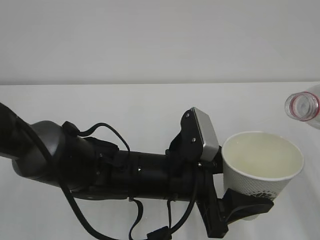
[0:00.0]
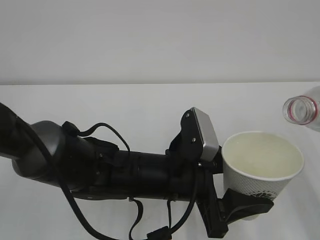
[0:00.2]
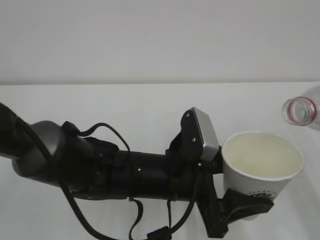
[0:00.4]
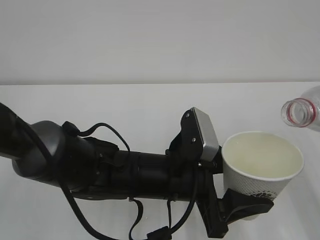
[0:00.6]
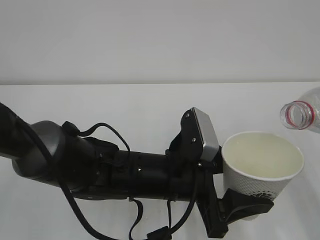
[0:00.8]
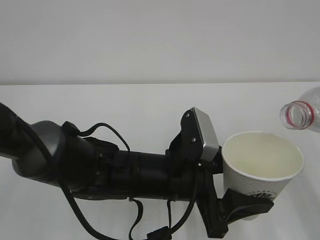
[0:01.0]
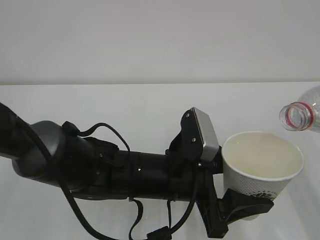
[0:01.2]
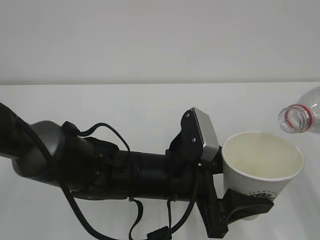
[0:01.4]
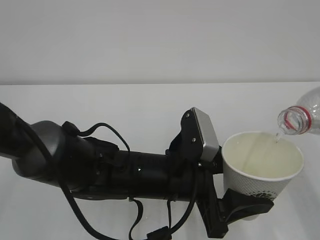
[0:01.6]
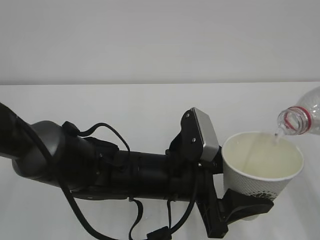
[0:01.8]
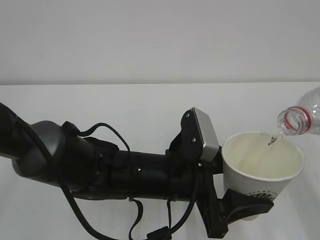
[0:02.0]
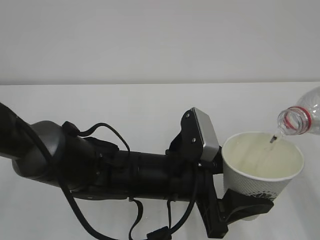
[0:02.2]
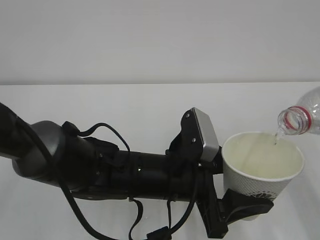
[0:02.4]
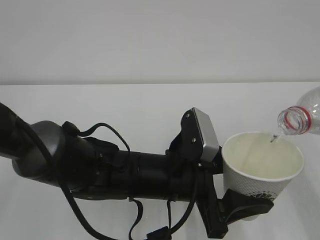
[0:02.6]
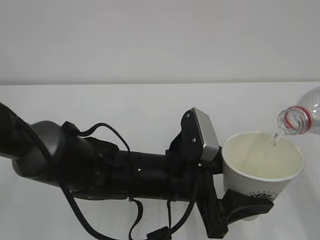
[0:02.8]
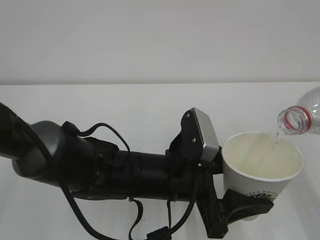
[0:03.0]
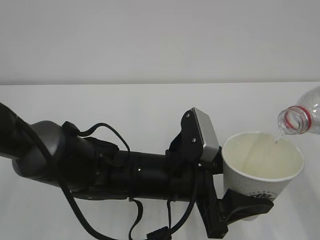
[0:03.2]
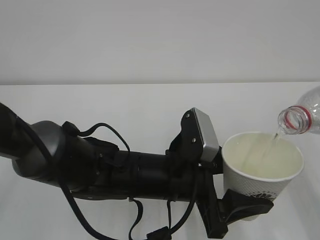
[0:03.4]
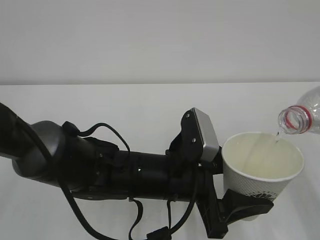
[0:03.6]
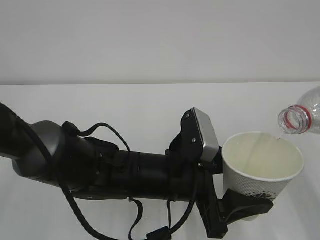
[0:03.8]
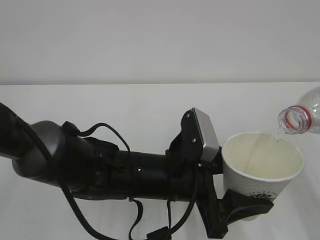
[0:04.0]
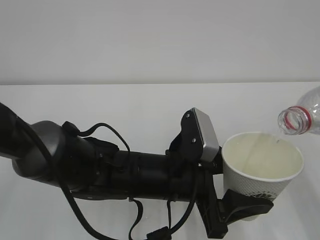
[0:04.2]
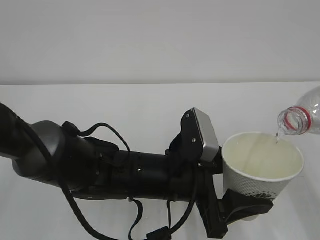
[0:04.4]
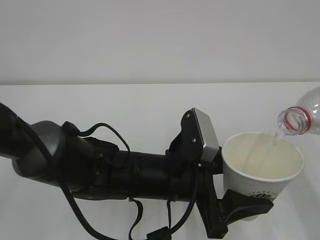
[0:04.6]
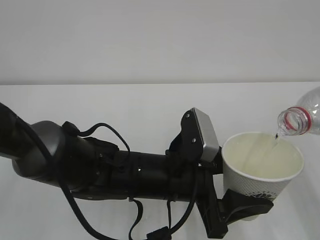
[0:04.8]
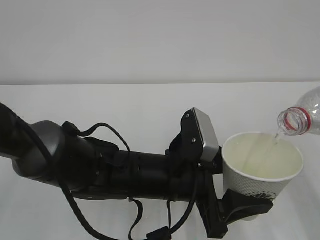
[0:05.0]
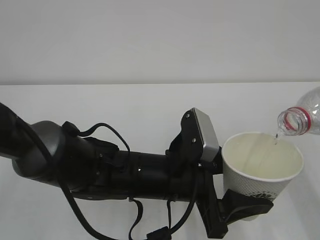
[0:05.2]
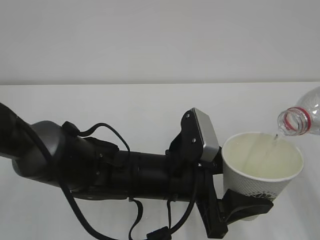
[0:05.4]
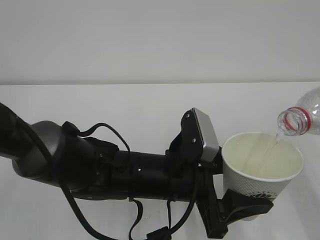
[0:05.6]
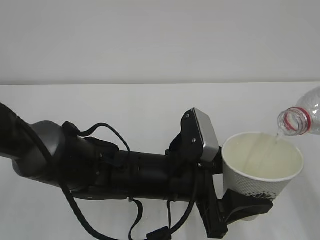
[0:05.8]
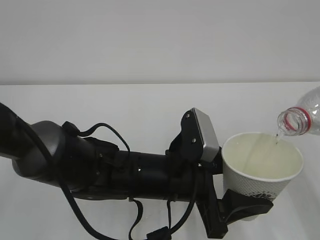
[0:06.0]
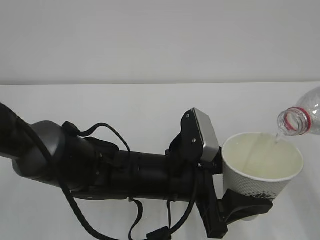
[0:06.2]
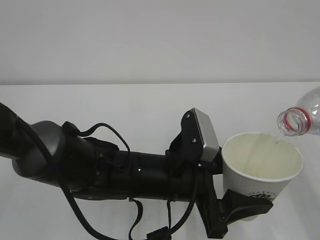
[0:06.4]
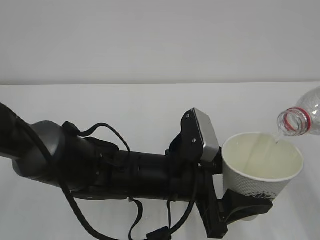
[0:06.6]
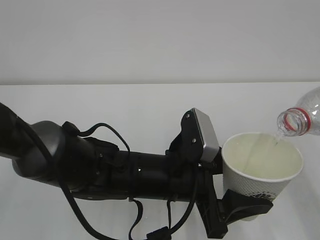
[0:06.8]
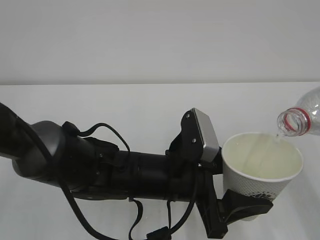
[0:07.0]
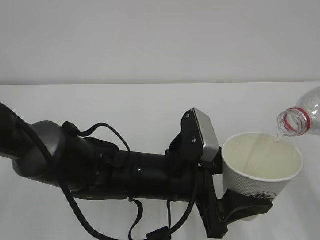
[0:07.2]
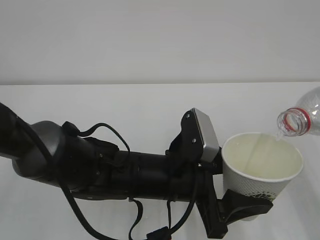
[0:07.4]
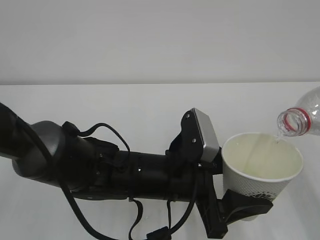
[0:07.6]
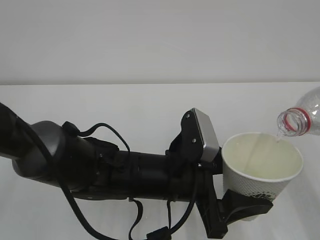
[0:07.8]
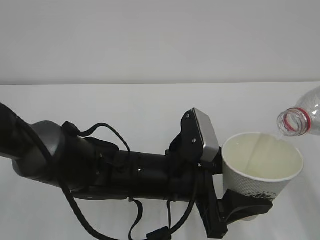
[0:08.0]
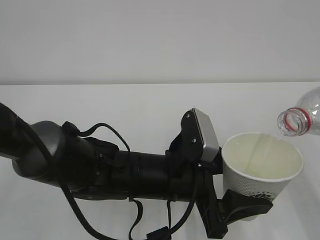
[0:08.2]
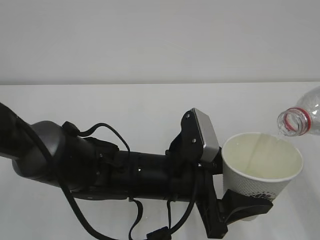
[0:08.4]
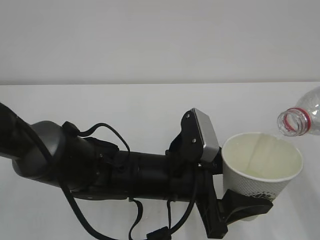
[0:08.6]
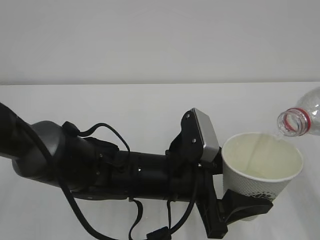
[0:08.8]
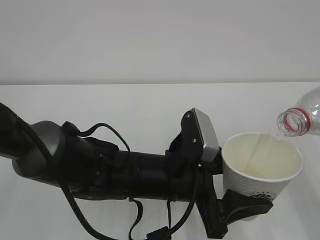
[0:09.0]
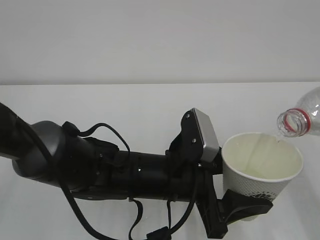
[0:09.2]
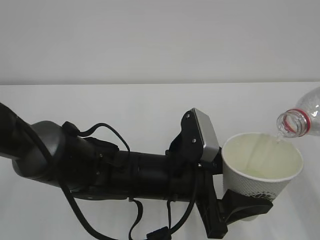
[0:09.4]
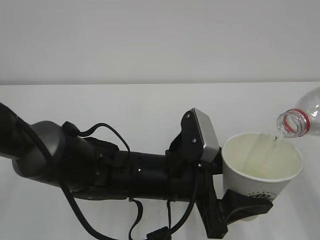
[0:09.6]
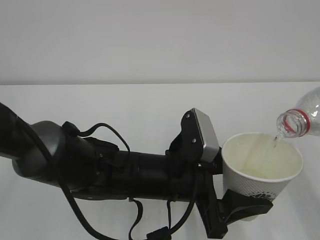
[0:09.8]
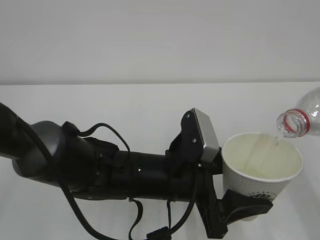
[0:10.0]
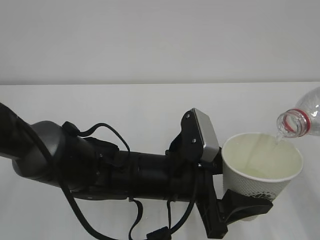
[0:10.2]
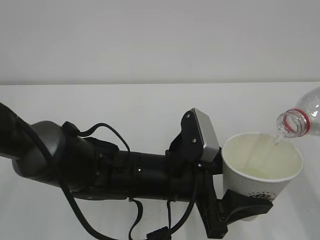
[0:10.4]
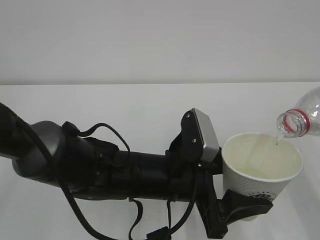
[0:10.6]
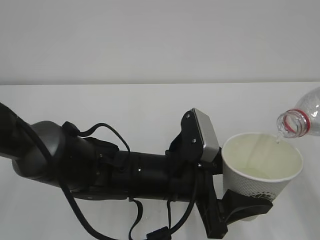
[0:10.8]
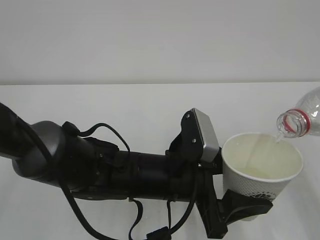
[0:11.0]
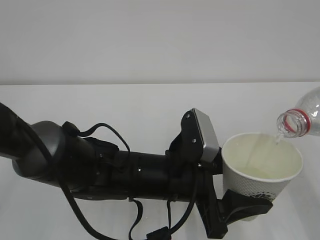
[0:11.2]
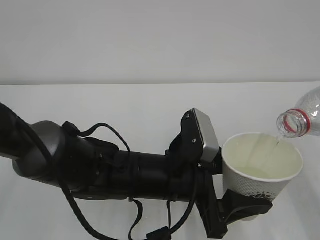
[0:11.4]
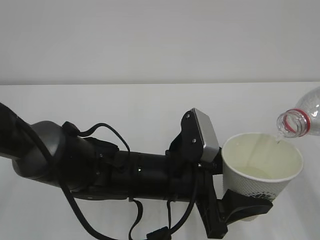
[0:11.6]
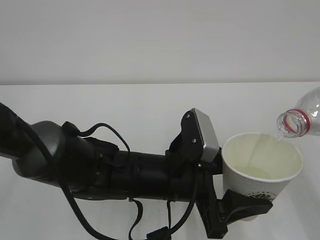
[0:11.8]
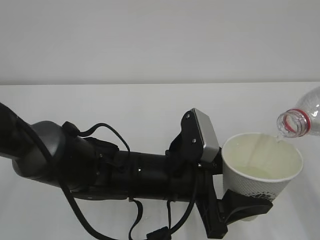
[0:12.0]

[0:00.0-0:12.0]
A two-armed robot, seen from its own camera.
0:00.0 to 0:01.6: The grippers make only small movements.
0:01.6 to 0:12.0: The two grippers keep their place.

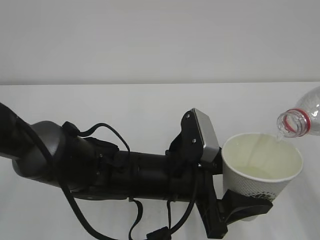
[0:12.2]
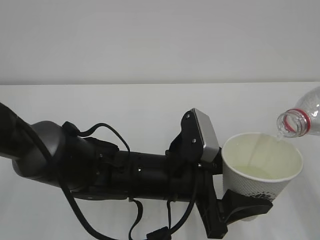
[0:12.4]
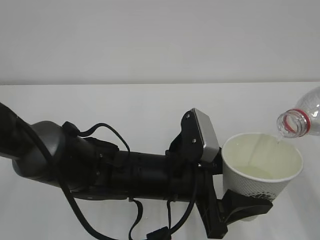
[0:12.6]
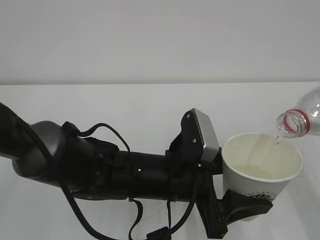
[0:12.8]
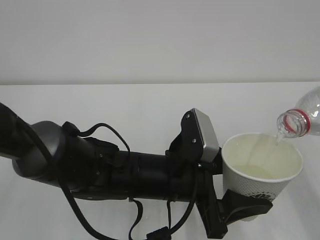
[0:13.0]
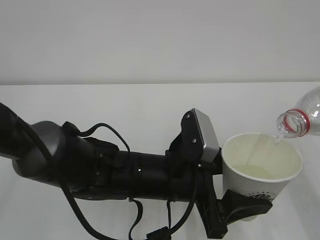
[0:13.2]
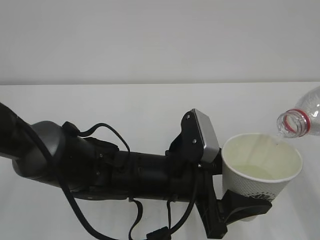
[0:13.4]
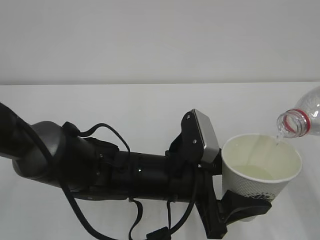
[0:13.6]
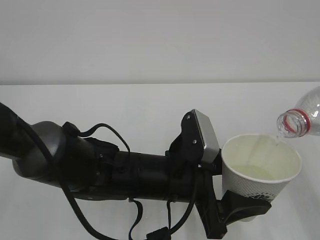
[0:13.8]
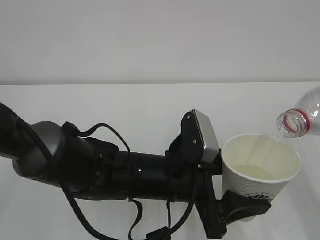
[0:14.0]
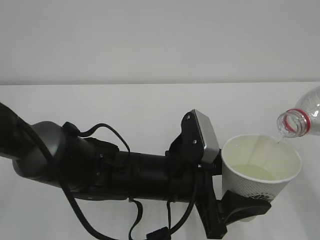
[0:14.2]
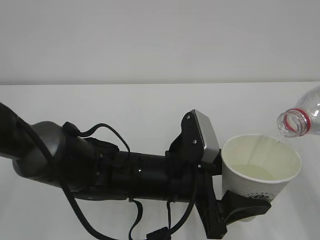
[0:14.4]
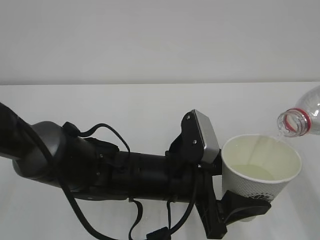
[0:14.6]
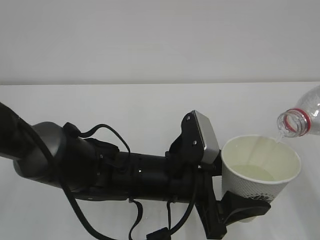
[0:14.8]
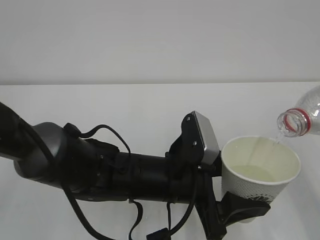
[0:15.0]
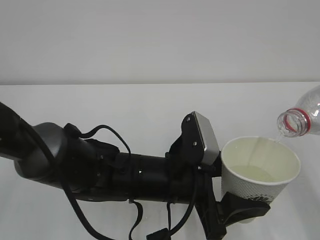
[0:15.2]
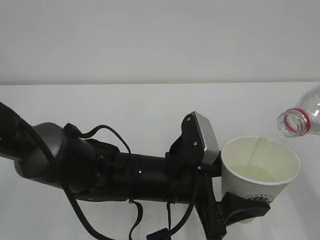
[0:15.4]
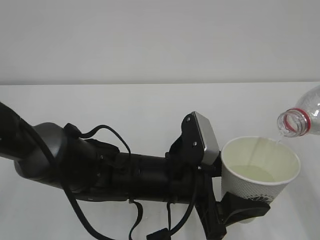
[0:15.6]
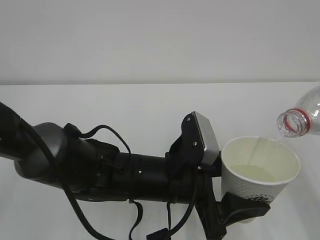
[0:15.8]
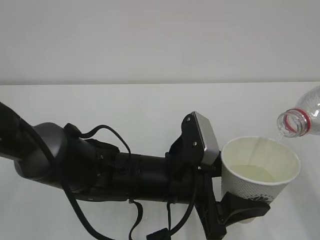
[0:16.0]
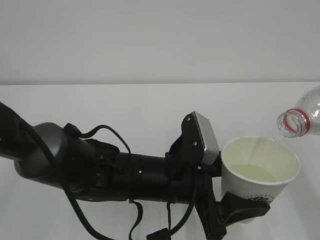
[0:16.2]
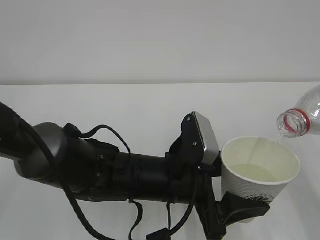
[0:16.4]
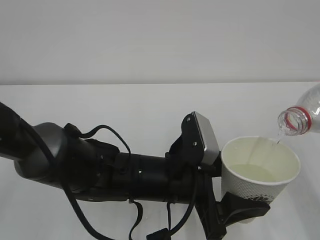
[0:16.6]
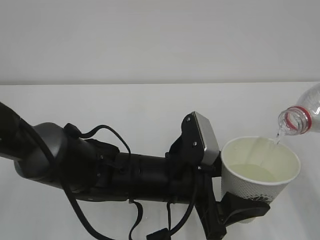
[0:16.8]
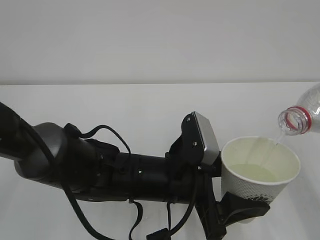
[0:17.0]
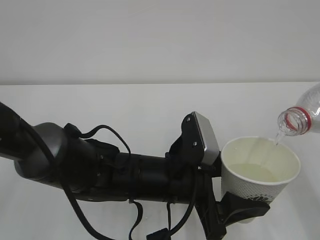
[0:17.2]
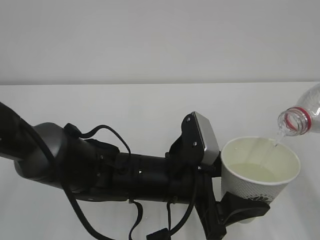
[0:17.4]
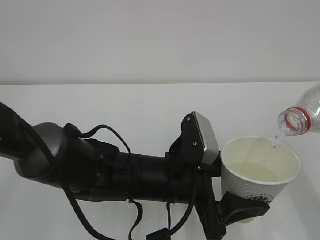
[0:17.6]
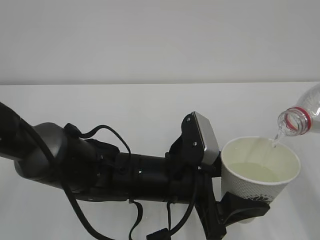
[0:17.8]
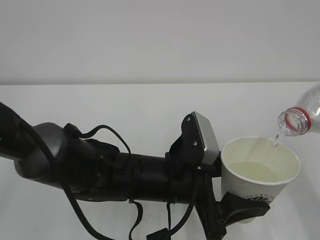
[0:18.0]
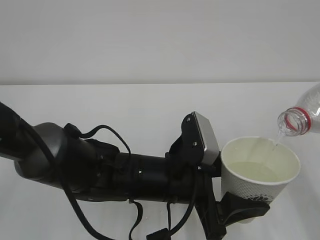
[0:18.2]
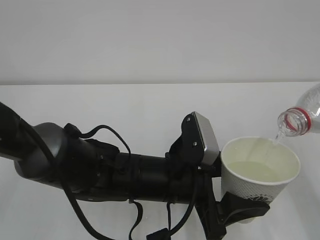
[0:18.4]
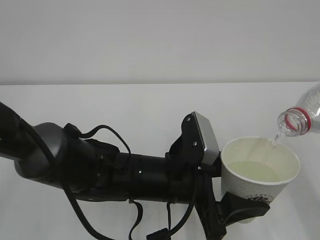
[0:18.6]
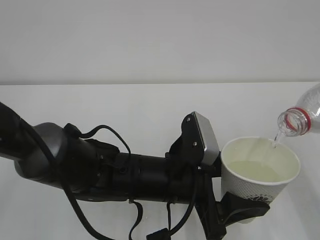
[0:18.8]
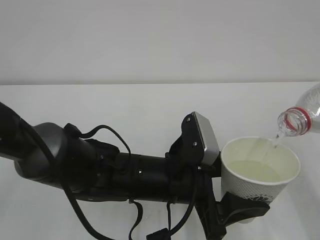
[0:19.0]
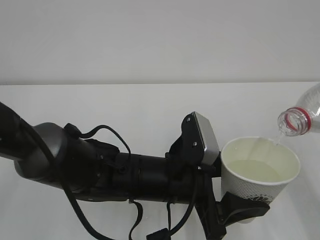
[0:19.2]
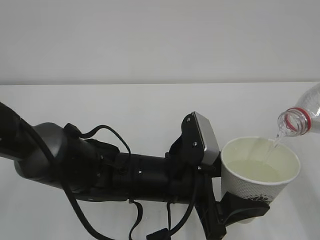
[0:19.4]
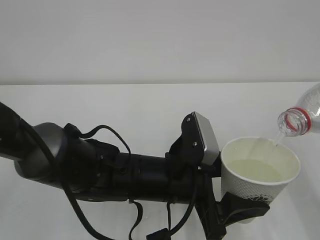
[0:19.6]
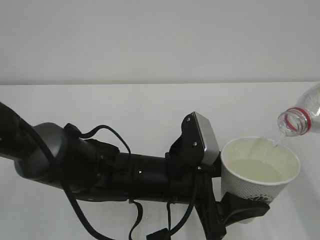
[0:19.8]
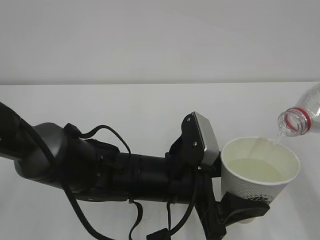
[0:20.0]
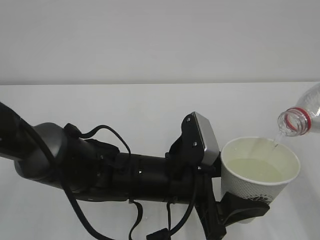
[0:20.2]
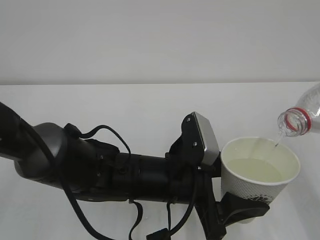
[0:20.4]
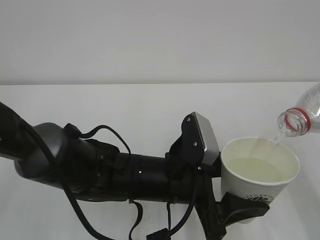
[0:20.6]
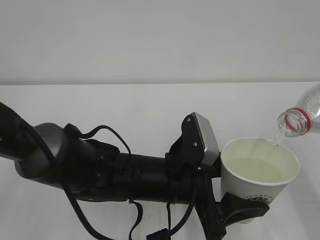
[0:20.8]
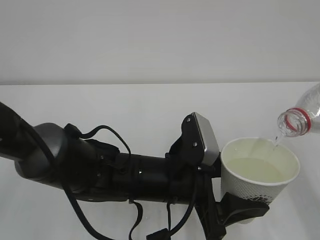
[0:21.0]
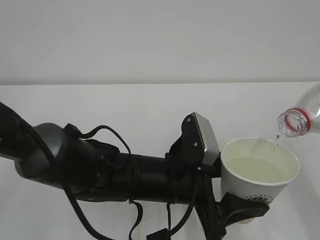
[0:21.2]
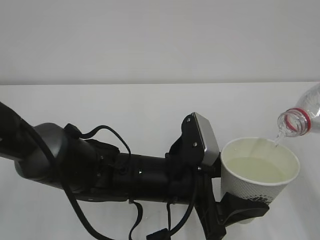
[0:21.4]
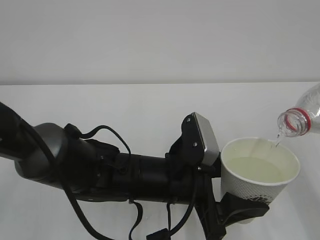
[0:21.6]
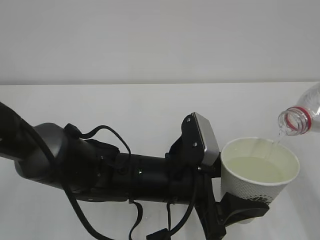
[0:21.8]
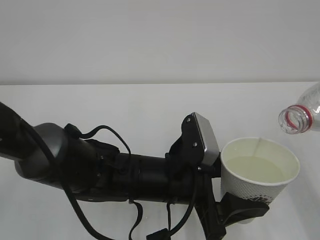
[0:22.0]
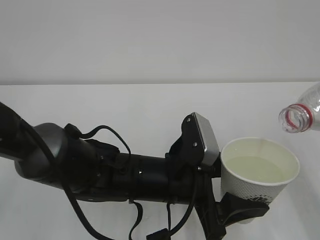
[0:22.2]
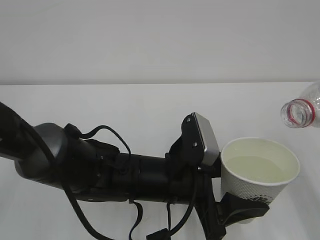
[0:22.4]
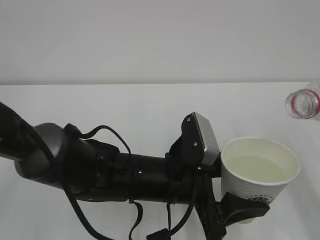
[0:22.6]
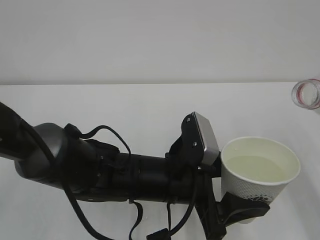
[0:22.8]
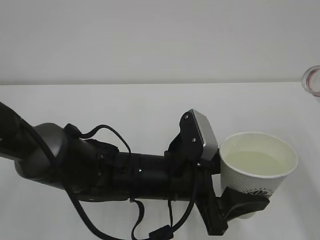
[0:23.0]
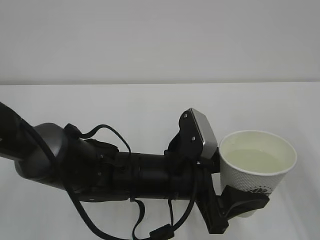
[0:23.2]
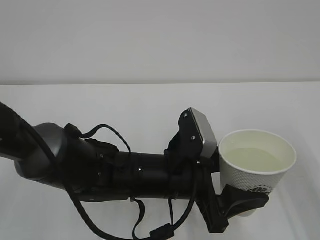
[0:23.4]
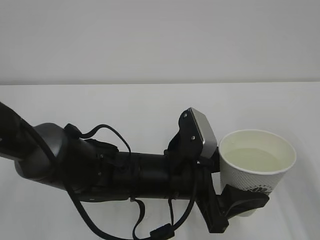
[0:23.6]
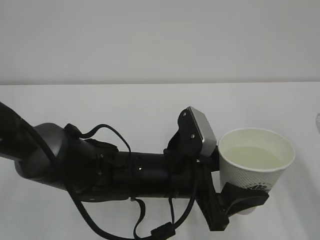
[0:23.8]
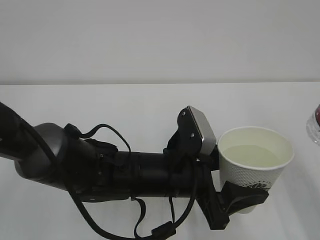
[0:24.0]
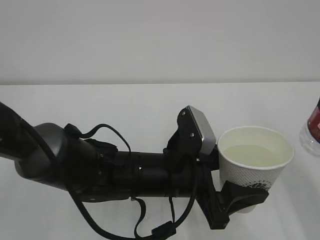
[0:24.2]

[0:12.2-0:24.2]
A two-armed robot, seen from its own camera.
0:12.2 to 0:21.2: Both grippers stay about where they are.
0:21.2 to 0:22.6: The grippers make only small movements.
